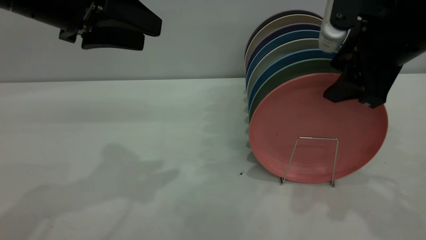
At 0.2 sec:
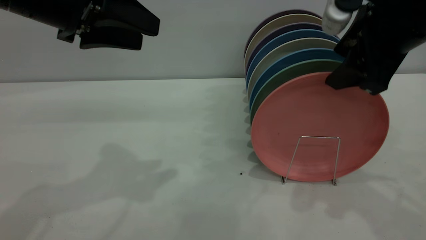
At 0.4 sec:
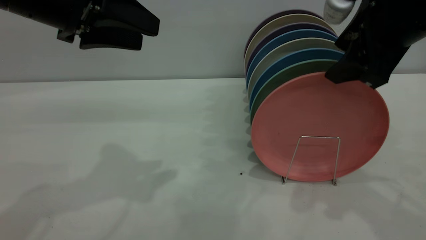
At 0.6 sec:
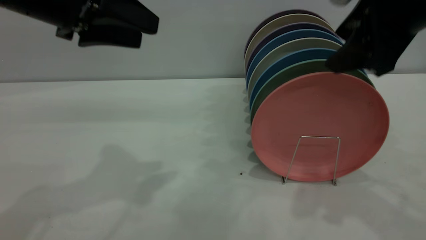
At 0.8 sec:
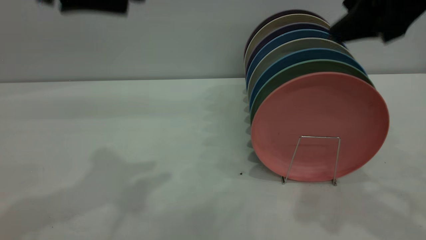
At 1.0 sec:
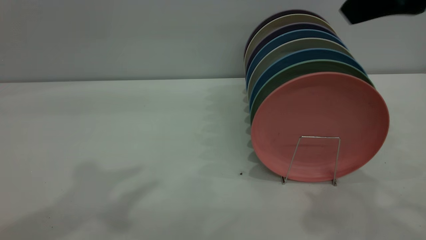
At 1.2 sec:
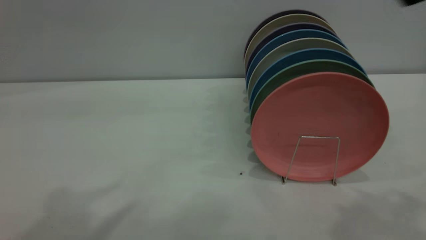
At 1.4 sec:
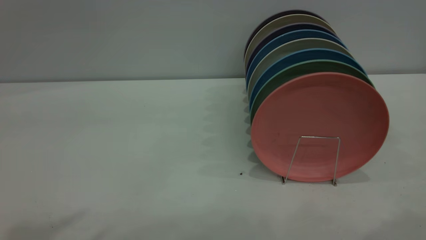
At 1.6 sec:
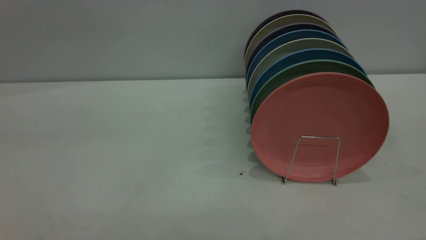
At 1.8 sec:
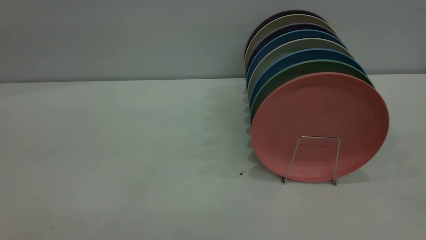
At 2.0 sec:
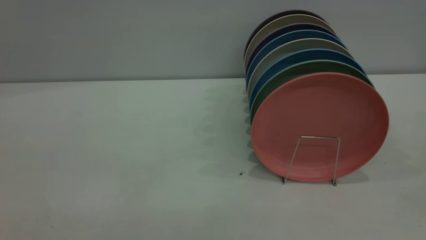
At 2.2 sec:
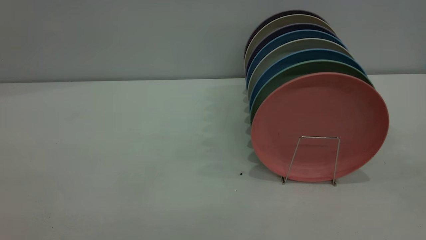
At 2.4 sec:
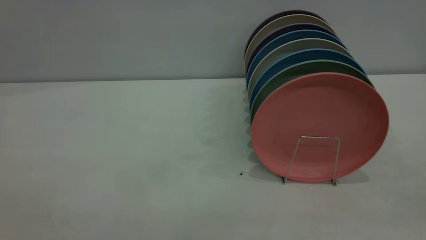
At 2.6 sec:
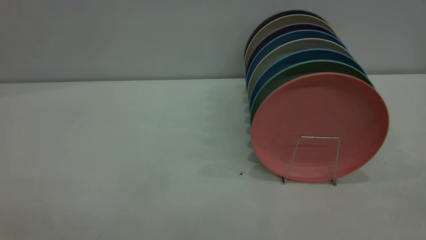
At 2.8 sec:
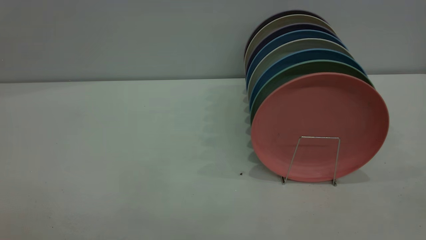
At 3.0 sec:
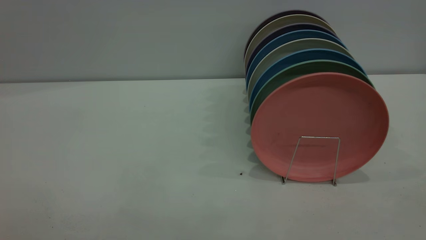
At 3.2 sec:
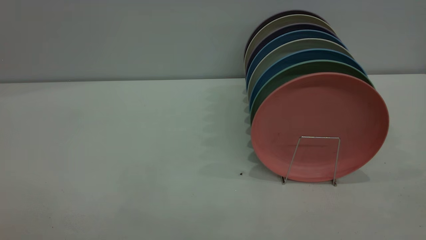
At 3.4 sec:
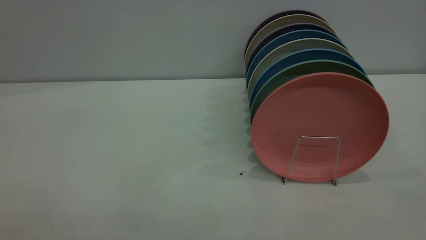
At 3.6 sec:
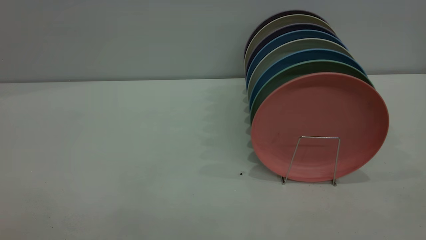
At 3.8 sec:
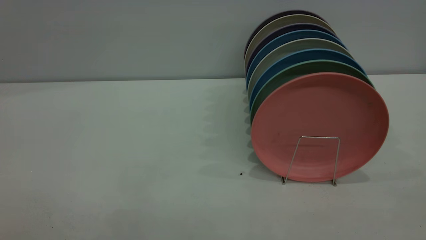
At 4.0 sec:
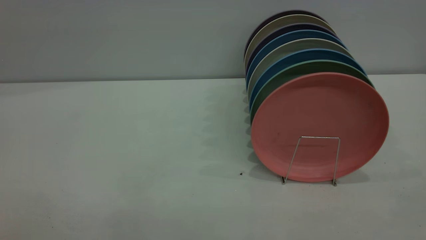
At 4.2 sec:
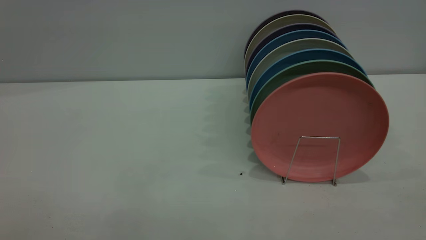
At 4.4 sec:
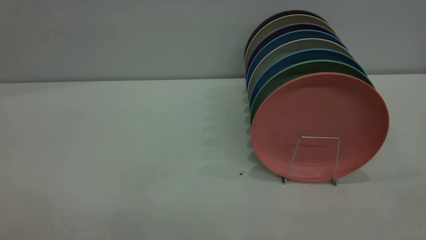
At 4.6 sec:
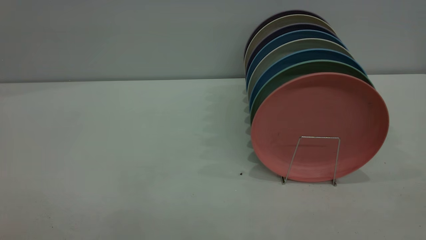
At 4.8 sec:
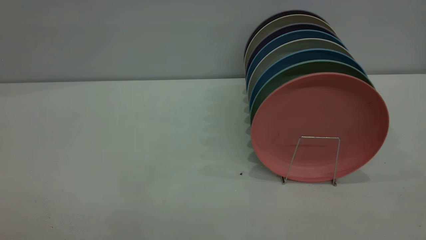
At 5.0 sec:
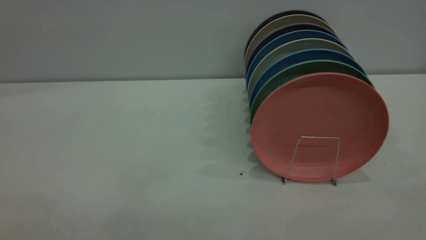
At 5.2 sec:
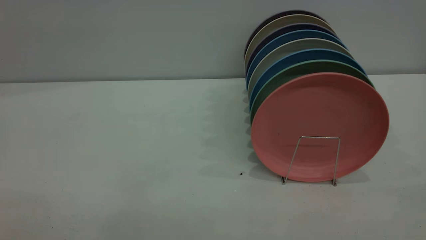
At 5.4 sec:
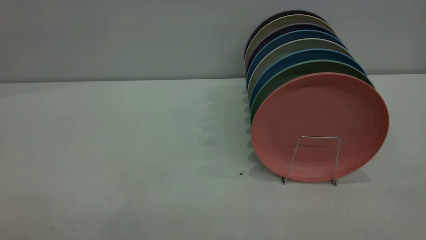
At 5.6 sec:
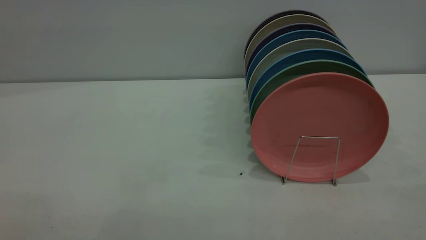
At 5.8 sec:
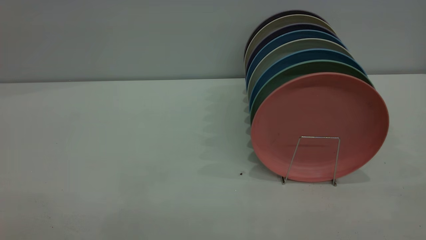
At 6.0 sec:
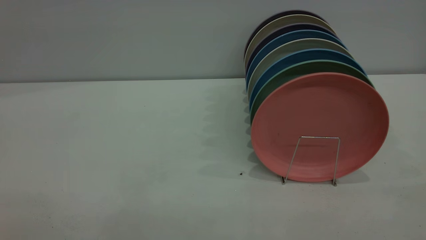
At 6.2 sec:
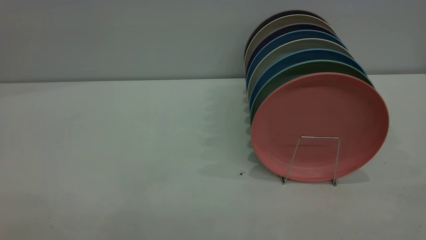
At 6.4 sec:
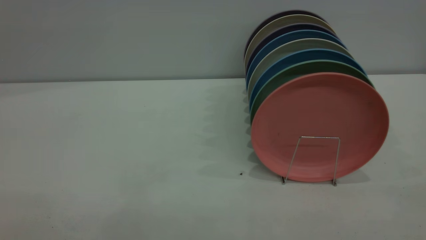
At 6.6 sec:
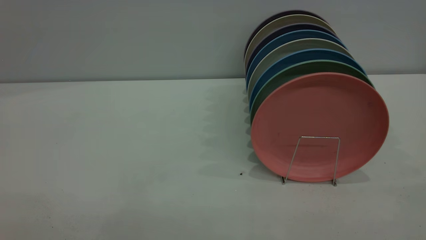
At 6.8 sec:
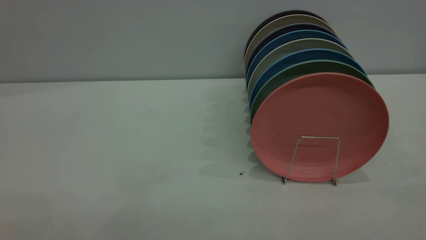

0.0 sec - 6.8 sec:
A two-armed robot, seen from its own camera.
Task of the whole recording: put the plate on the plate rack.
0.0 sec - 1.4 sec: Both grippers move upward and backward, some 25 cm.
5.4 sec - 6.8 sec: The two grippers keep their place.
